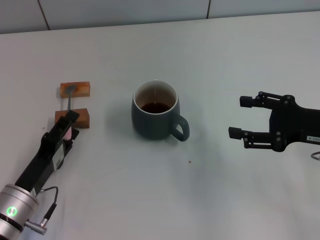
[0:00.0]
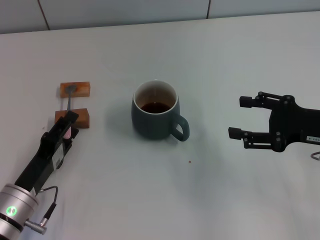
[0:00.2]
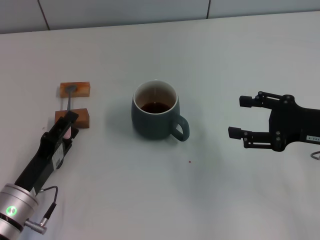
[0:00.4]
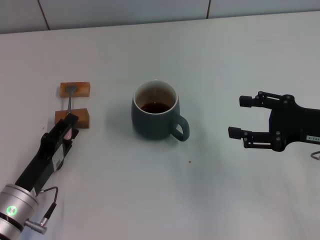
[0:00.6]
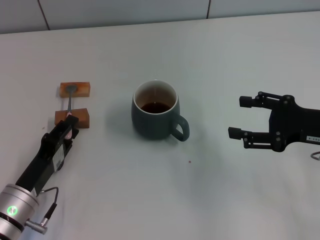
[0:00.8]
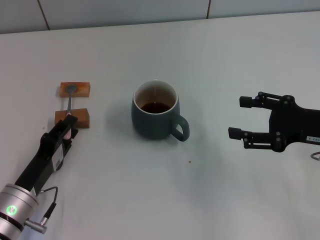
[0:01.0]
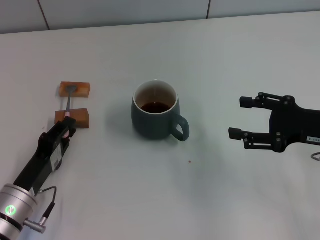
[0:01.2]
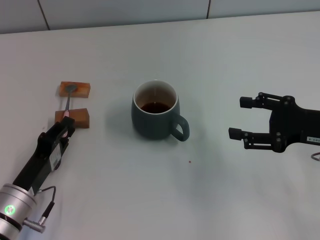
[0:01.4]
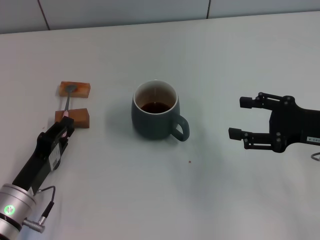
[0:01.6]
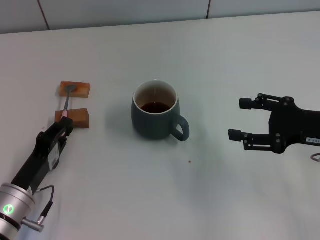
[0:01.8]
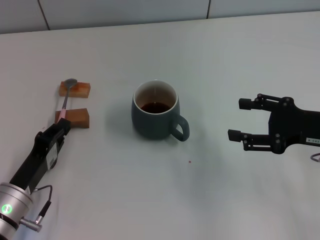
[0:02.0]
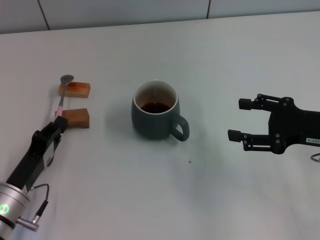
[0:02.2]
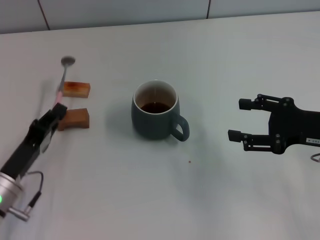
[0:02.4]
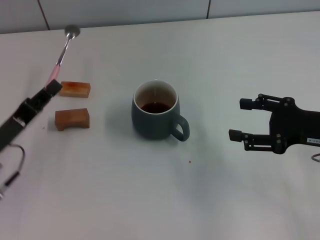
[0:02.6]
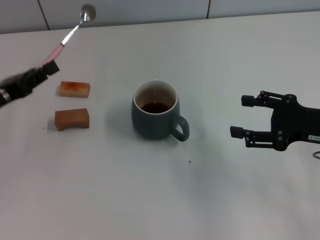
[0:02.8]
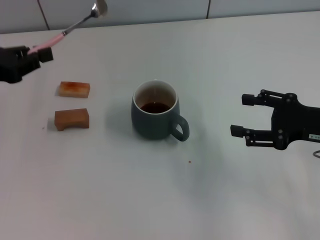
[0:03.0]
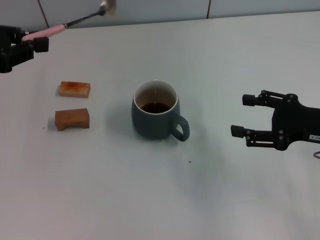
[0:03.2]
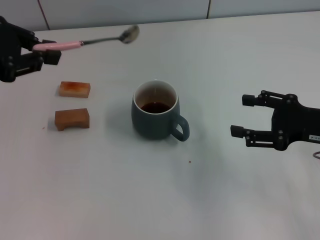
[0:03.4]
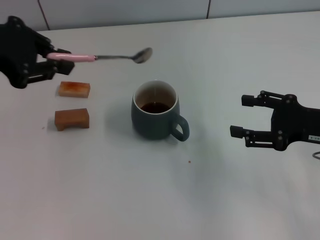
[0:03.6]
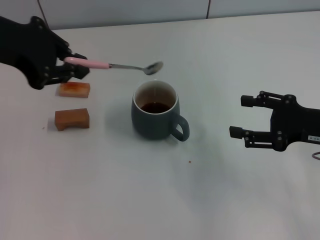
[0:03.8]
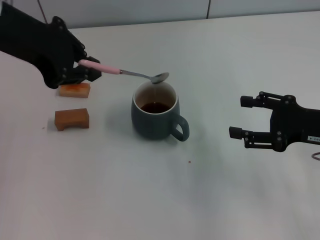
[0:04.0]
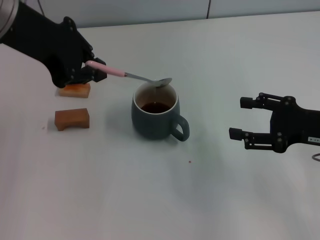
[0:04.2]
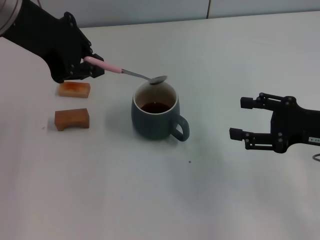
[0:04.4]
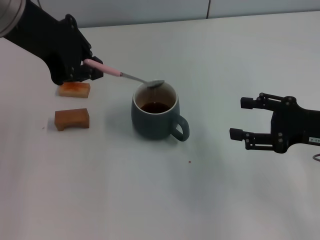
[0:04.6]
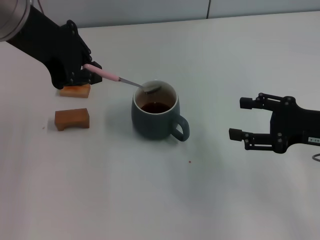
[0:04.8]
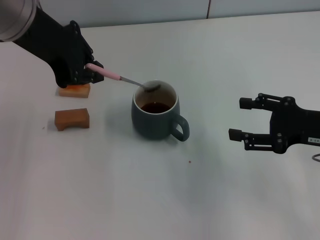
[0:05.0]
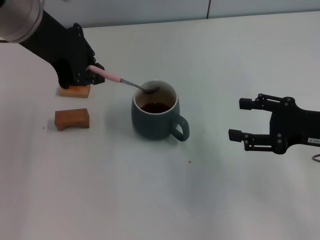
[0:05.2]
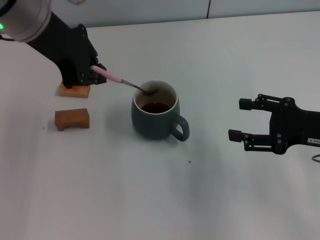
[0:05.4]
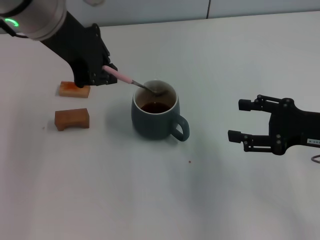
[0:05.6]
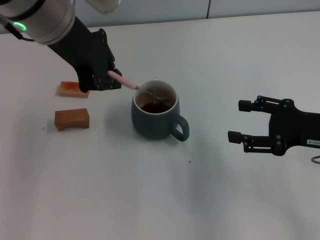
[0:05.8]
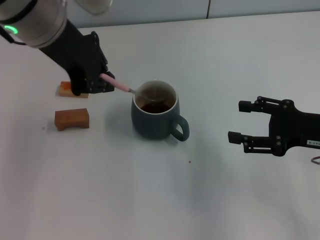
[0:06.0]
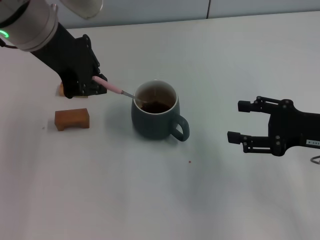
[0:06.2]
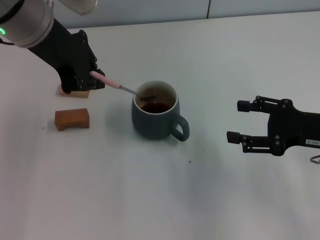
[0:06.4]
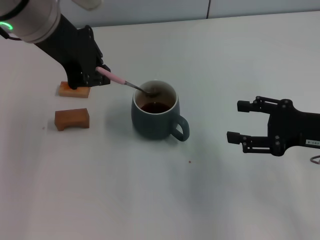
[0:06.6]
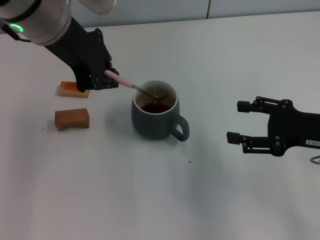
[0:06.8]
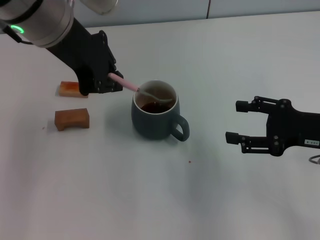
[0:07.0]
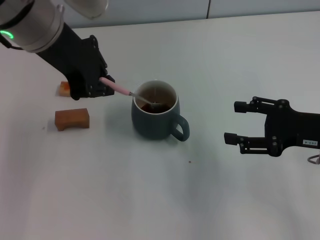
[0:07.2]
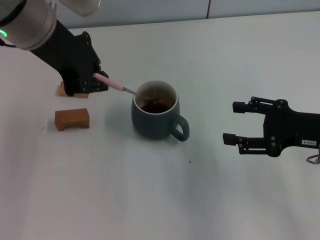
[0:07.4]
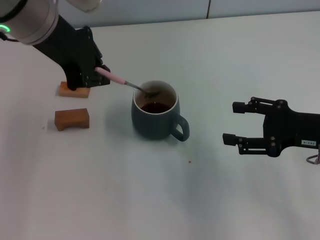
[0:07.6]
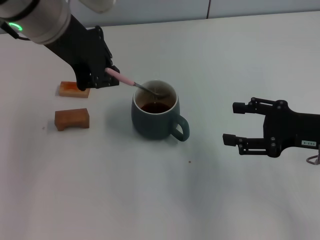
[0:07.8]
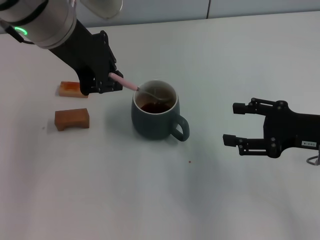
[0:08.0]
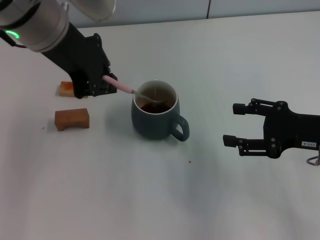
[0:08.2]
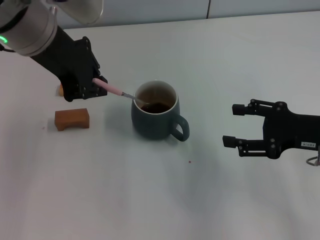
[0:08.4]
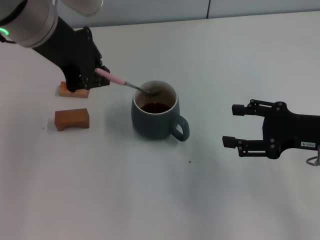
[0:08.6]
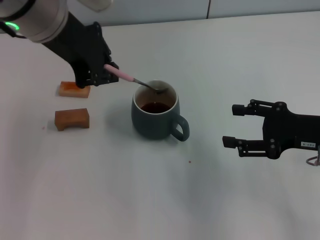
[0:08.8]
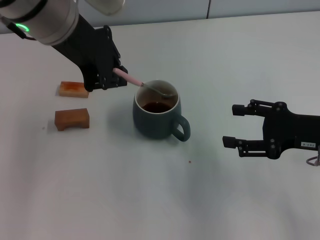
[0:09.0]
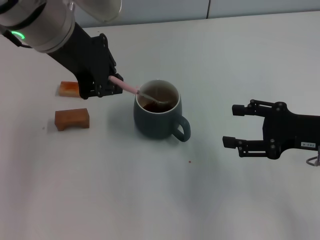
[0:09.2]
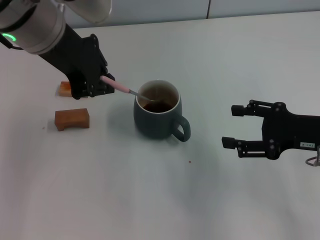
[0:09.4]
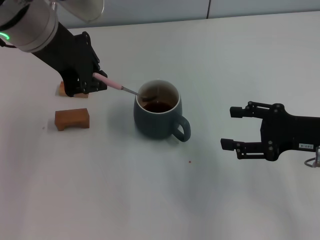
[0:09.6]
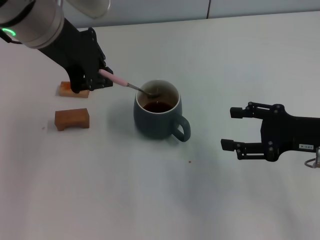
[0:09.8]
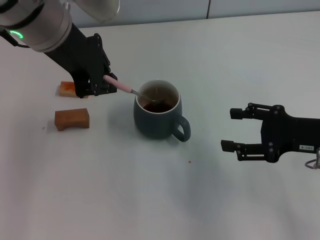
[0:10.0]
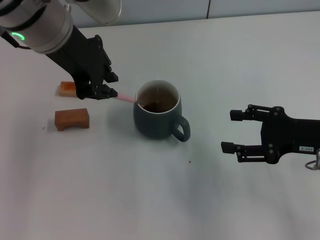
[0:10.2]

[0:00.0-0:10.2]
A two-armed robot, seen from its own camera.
Task of the whole recording: Move the grey cup to the center, lift the pink spoon, stir it three times in the cup, and put the spoon into the cup.
Step, 0:00.0 to 0:02.4: Pick up the spoon with the left gripper.
0:00.0 to 0:01.4: The left gripper closes.
0:01.4 to 0:03.0: The left gripper goes about 25 cm upward, forward and to the left.
0:03.0 to 0:04.4: The left gripper moves to the right and upward, roughly 20 cm.
0:04.4 to 0:05.8: The left gripper shifts about 5 cm to the right.
0:05.8 to 0:07.2: The grippers make only small movements.
0:07.2 to 0:08.8: Neither gripper changes place.
0:08.8 to 0:10.2: The grippers stay close to where they were, moving slightly.

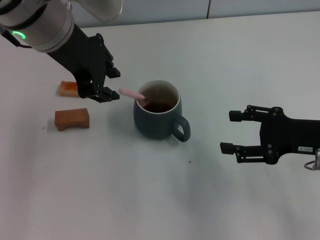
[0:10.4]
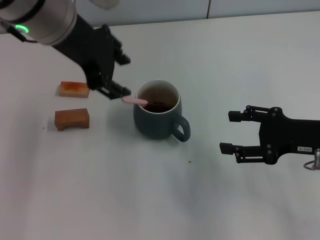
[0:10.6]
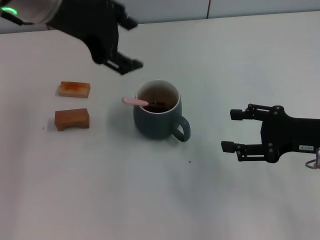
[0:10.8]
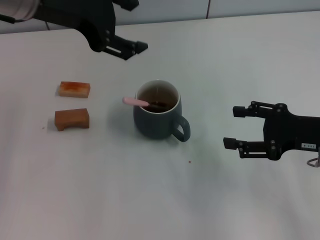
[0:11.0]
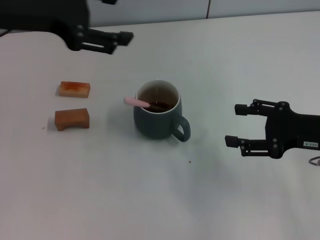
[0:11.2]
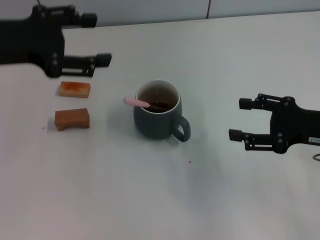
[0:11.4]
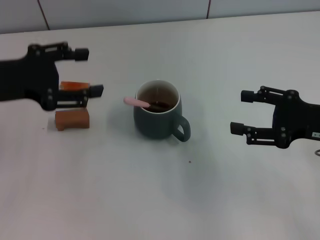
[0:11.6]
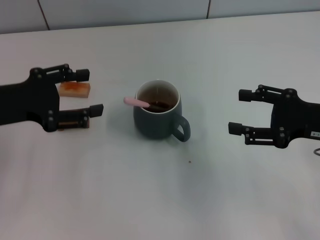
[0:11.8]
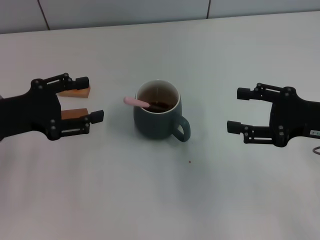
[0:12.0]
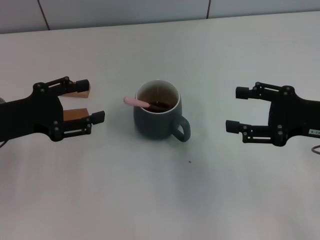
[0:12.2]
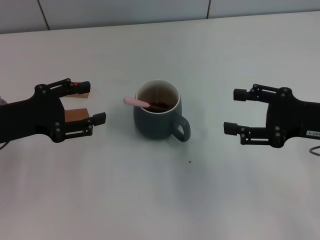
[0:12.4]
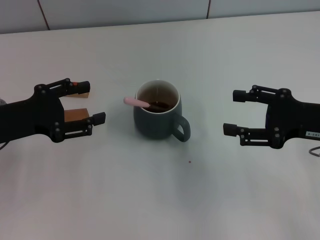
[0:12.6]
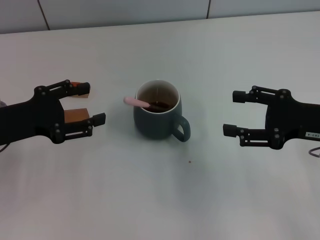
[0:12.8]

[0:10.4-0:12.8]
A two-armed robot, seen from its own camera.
Task of the whole recording: Move the grey cup to the center, lift the pink spoon, stir it three times in the cup, and put the spoon into the cup.
0:10.4 to 0:11.6: The left gripper shifts approximately 15 cm to the left and downward, and opens its fingers.
0:11.6 to 0:12.8: The left gripper moves downward, some 5 cm.

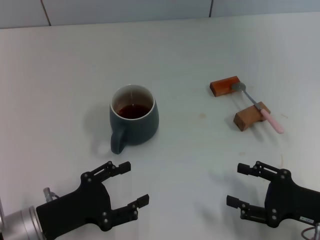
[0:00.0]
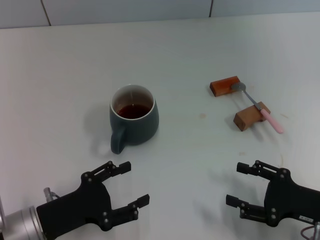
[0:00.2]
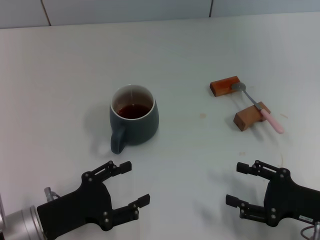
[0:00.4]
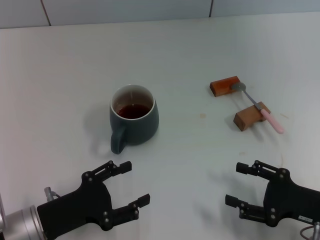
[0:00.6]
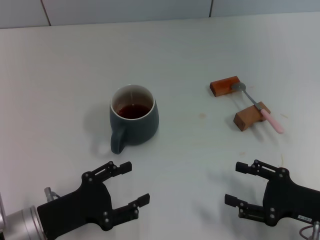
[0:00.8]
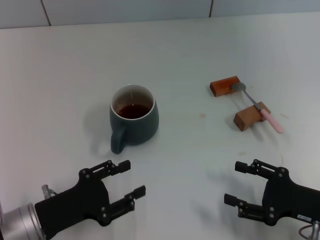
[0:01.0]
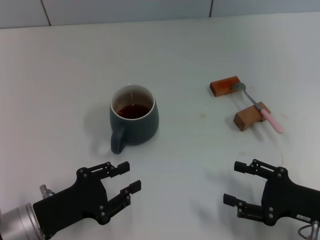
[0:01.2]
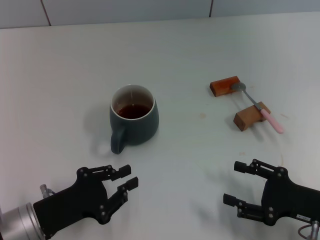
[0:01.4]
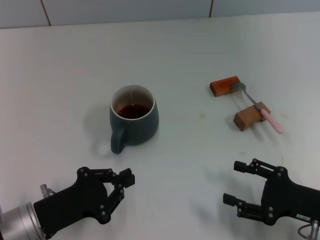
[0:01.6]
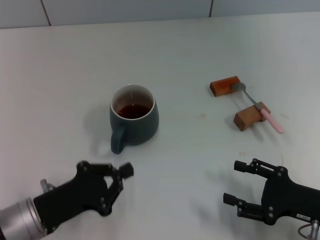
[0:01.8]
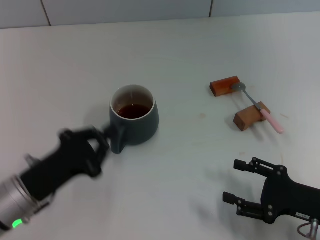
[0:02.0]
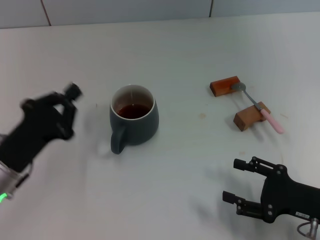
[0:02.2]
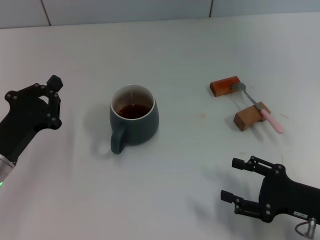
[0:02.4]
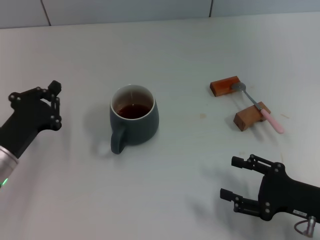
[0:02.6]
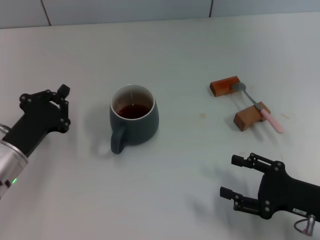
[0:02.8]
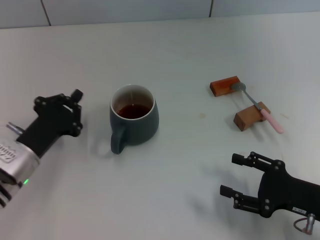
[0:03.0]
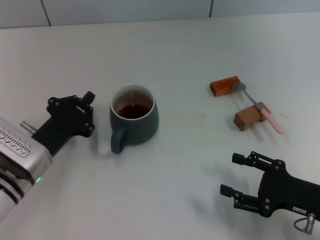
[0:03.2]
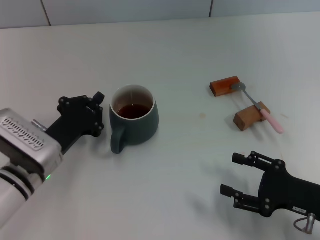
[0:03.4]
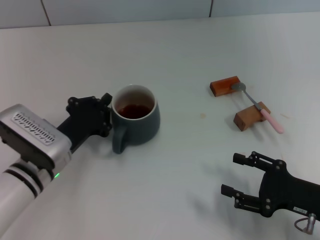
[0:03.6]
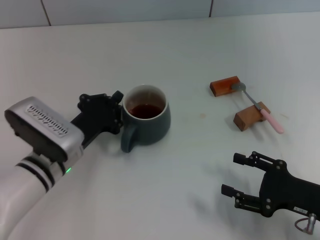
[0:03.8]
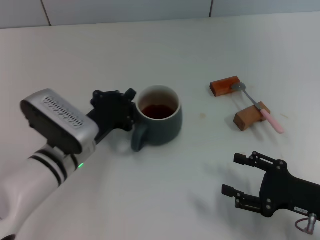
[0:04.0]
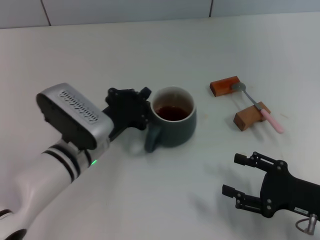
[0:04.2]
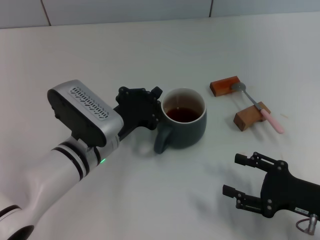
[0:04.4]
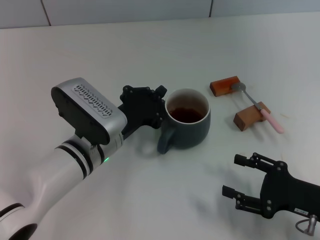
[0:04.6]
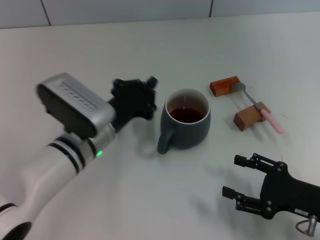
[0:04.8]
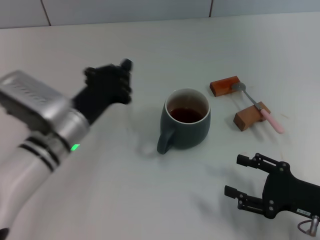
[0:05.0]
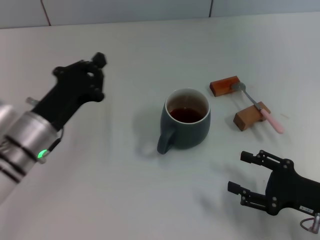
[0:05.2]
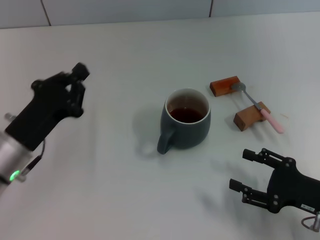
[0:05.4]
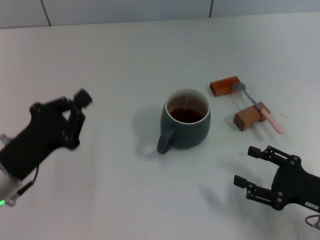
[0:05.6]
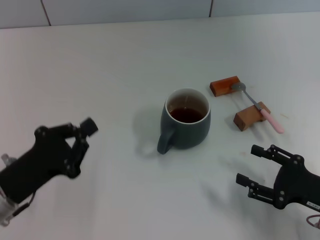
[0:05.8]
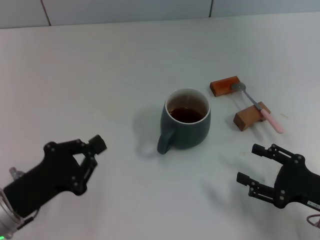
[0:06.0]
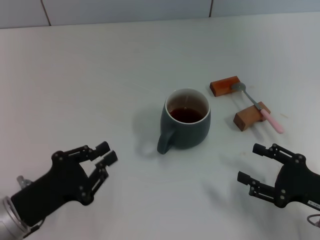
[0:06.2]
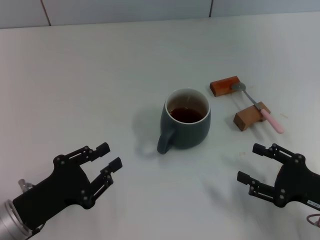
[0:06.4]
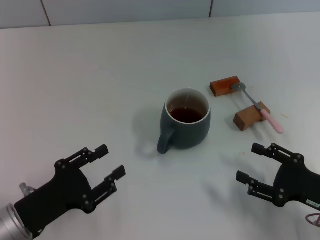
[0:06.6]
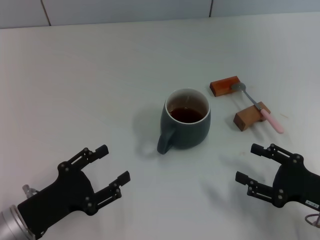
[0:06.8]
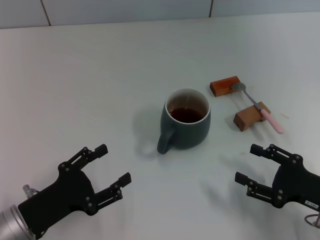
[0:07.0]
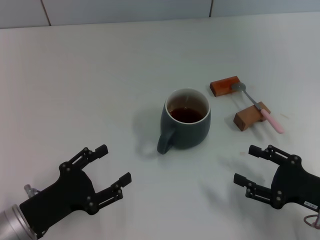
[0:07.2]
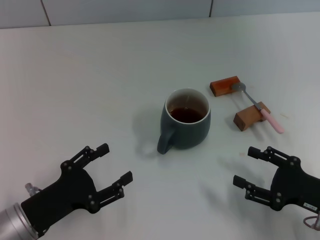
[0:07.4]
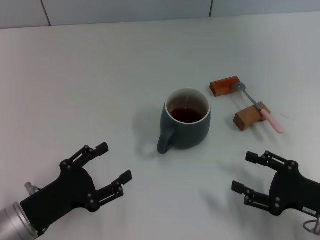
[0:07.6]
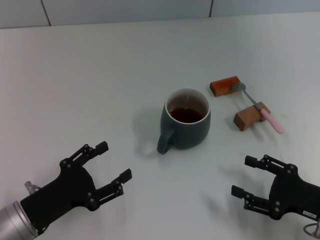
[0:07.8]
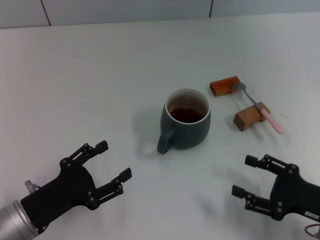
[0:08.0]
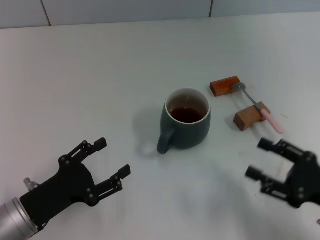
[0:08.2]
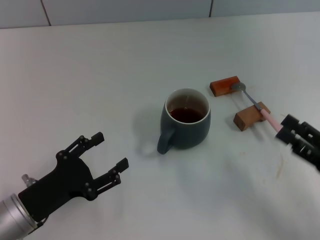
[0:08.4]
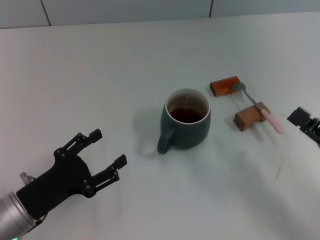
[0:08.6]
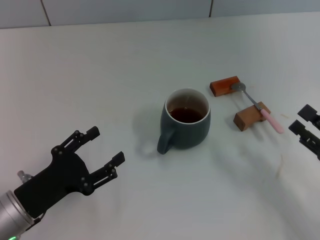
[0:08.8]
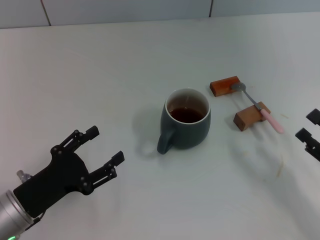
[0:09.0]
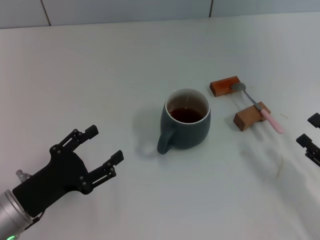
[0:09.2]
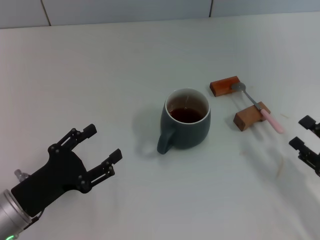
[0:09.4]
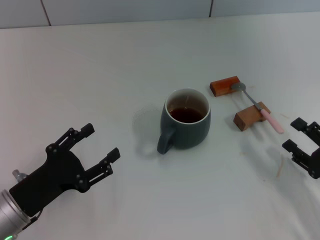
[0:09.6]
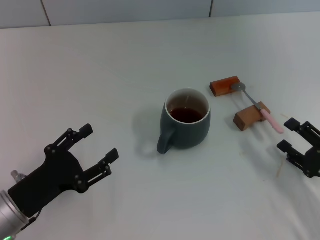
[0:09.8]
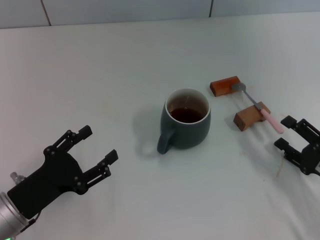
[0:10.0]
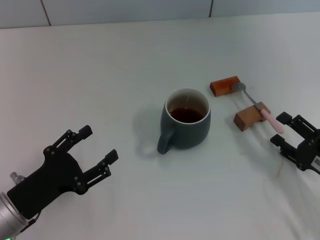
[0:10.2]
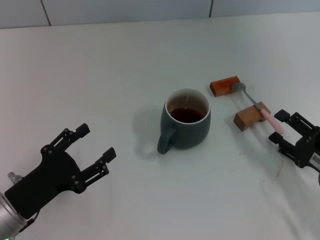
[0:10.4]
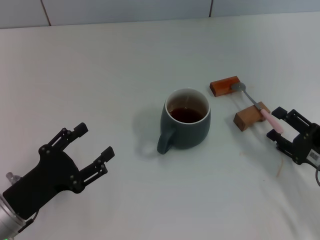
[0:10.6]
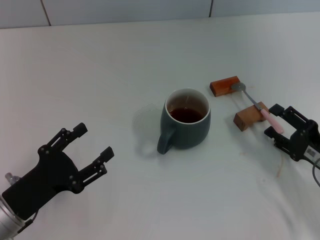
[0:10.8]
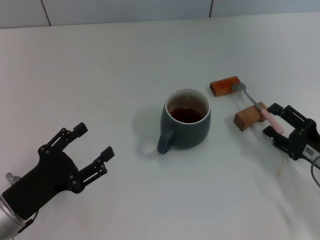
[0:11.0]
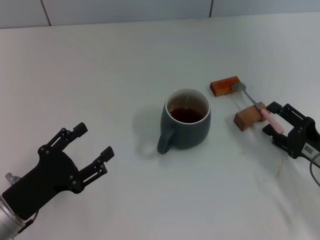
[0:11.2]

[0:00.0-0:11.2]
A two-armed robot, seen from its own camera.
Task of the whole recording: Move the grey cup to the center, lift the pink spoon, stir it three times in the cup, and put the spoon into the cup.
Step, 0:00.0 to 0:05.0: Move the cup with coffee to the center of view with the left gripper.
0:00.0 to 0:01.6: The left gripper closes its fingers.
0:01.6 to 0:03.2: The left gripper is displaced forward by about 10 cm.
0:03.2 to 0:04.8: The left gripper moves to the right, about 10 cm.
0:04.8 to 0:06.4: The left gripper goes roughly 15 cm to the left and backward.
0:06.4 to 0:08.0: The left gripper opens.
0:09.6 to 0:11.2: The right gripper moves some 5 cm.
